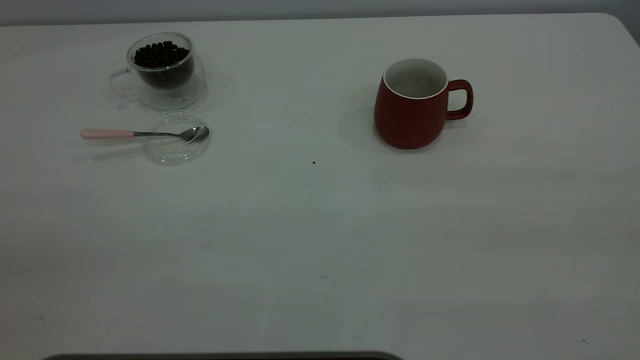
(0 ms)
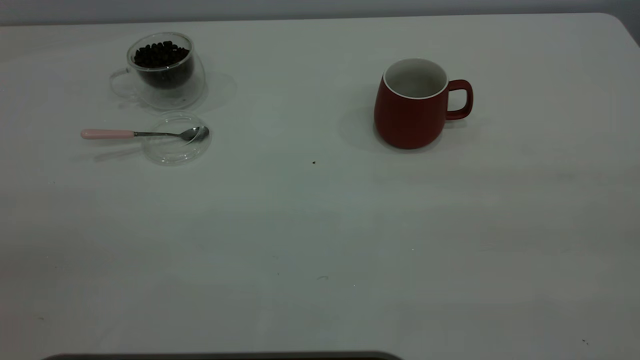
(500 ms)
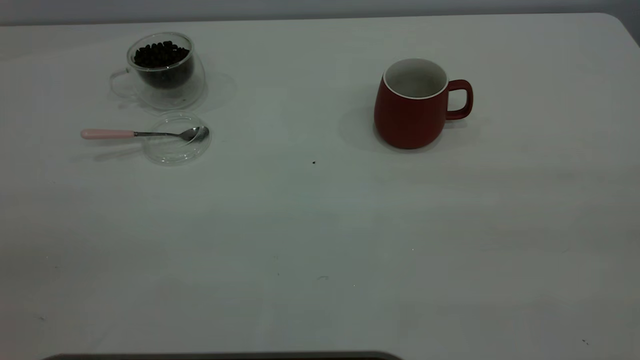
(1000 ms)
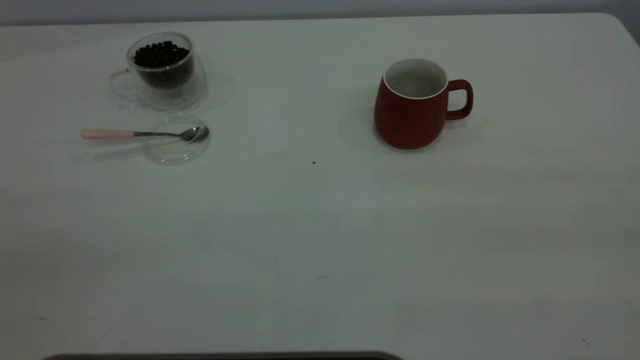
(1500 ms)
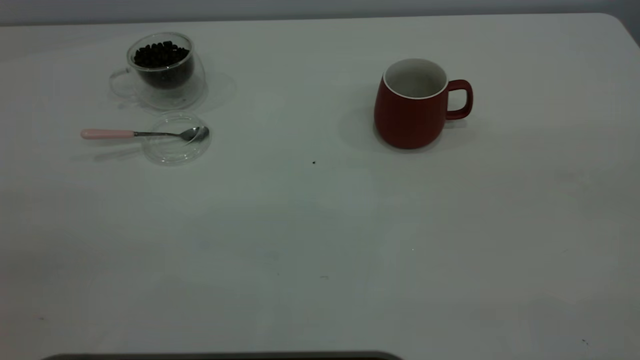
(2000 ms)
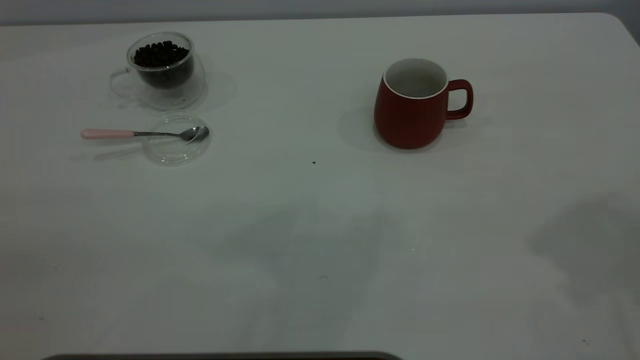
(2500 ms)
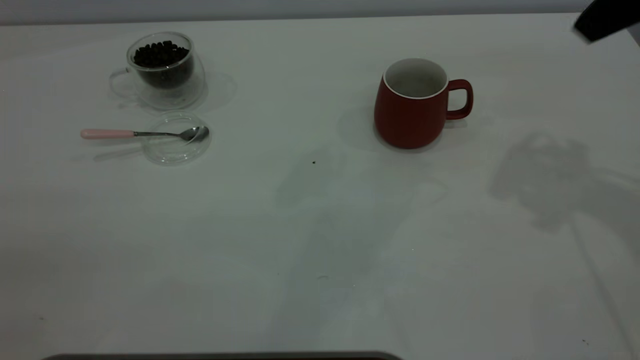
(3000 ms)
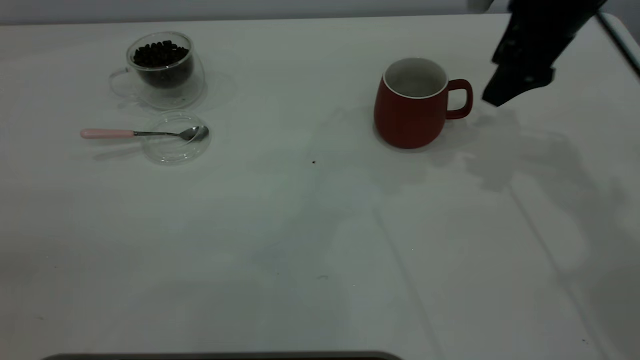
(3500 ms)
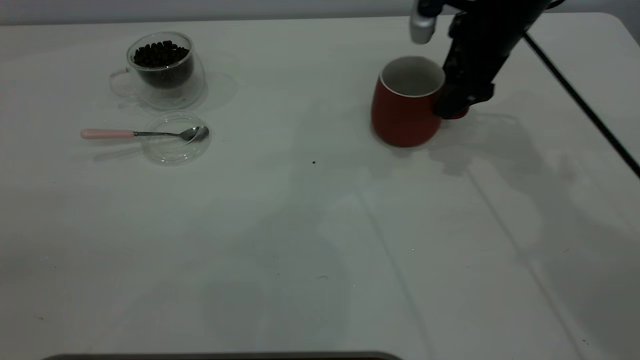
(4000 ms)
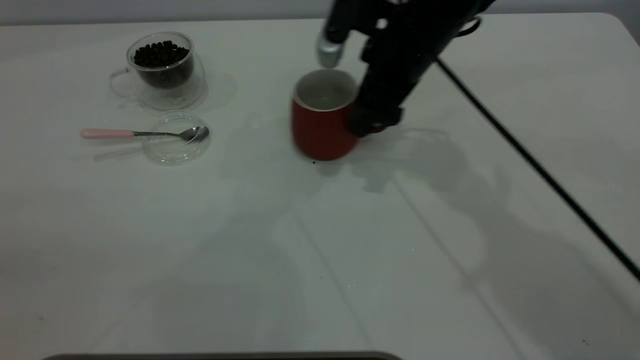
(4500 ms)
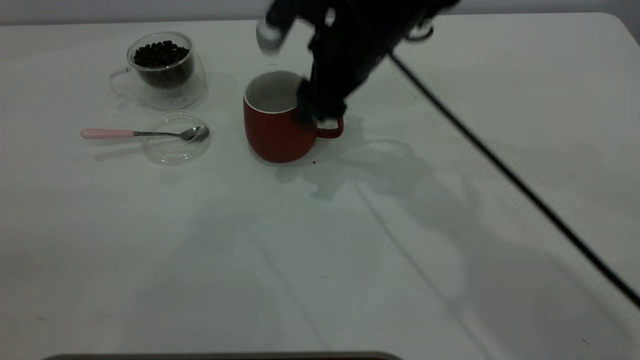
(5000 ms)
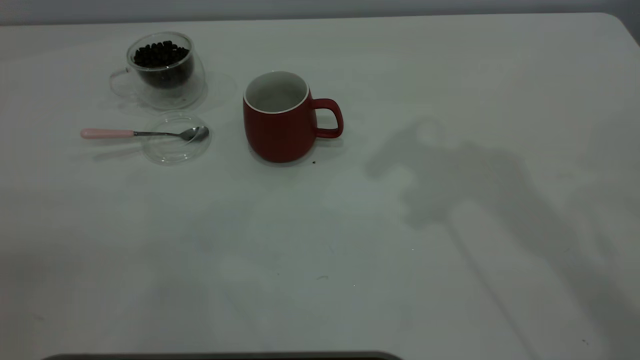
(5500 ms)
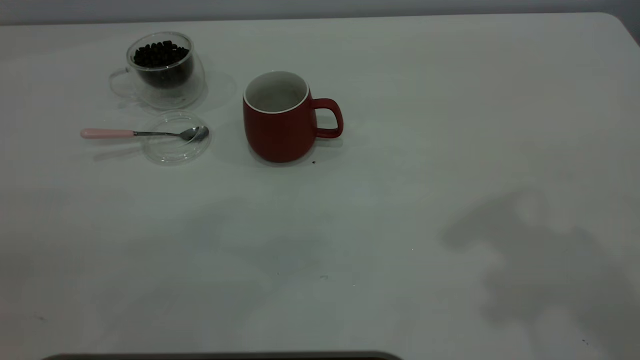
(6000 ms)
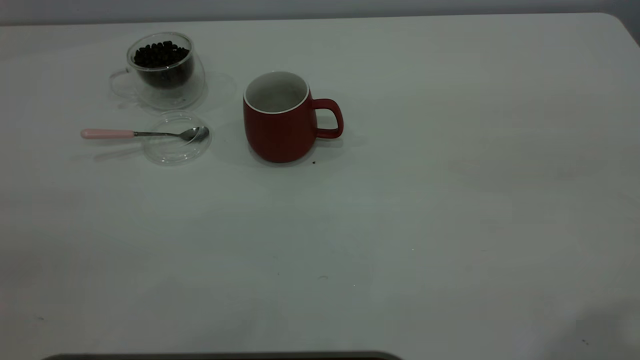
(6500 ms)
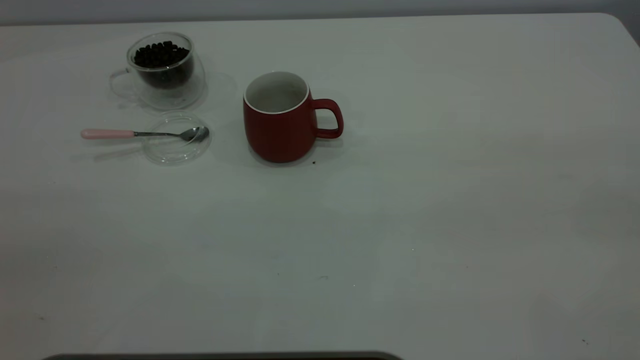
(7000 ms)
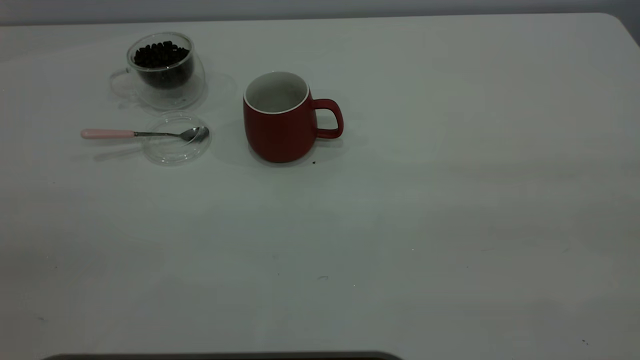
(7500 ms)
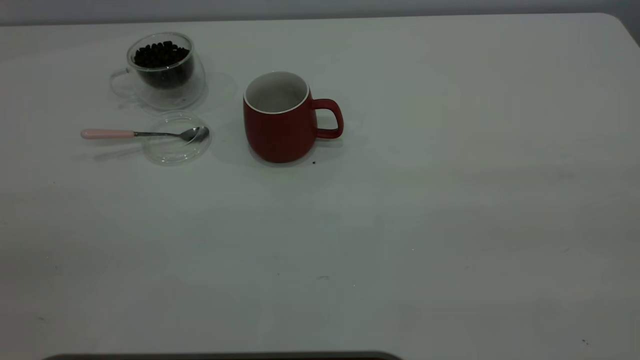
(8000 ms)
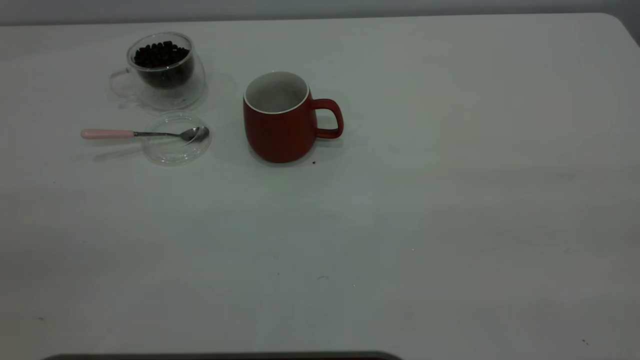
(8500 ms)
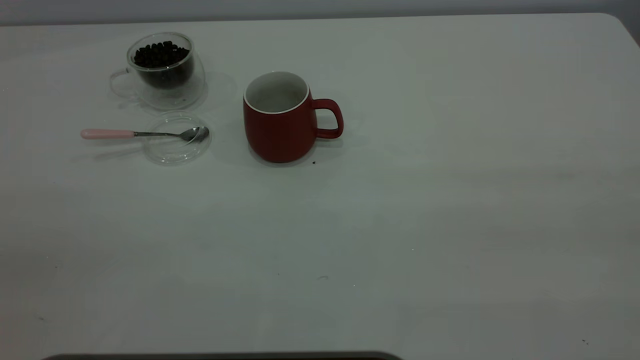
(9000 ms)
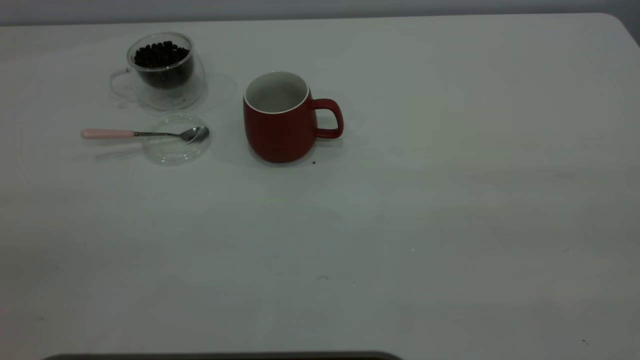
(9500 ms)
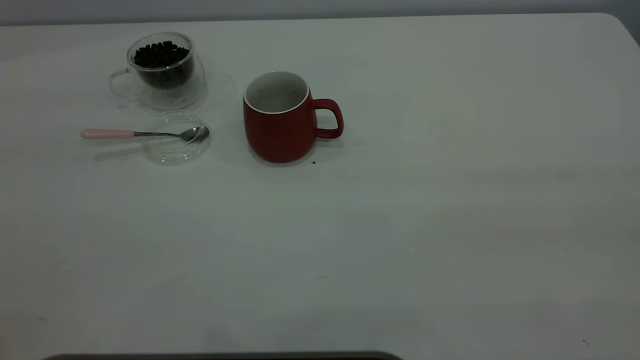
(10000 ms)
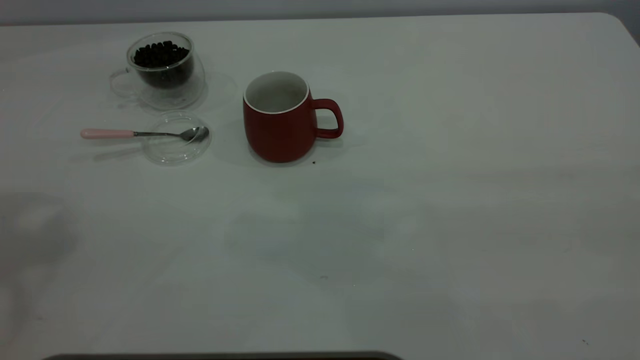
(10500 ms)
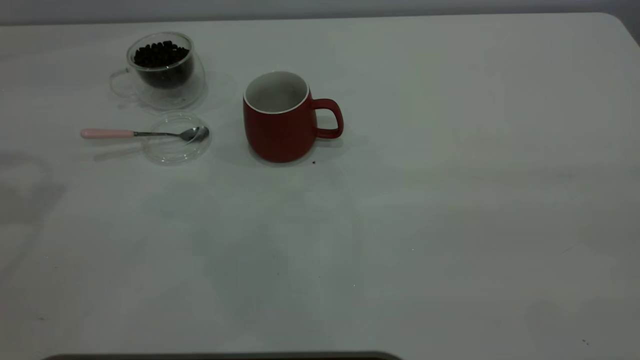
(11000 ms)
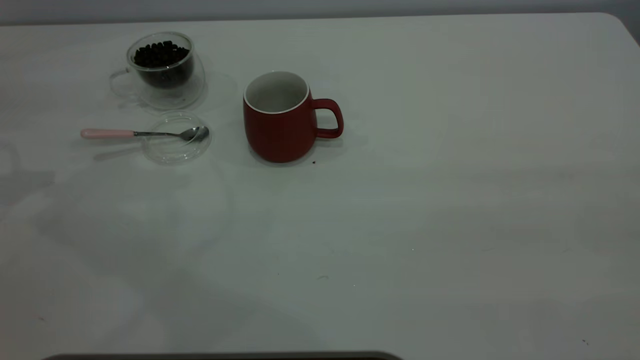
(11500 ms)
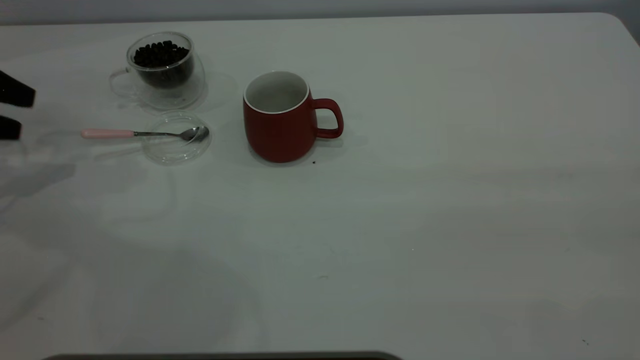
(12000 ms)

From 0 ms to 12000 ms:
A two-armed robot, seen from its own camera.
Task of the whole recording: the right gripper place the red cup in the center of the table, the left gripper take the pink spoon from the cup lid and scoop out the coffee beans from the coffee cup and put them into the red cup, the left gripper put the spoon back into the cup lid.
Step, from 0 ms to 5000 ms: Move the cup to the center of view.
From 2000 ms to 4000 ms: The right gripper shifts about 50 cm forward and downward, and opens.
From 4000 ms to 6000 ms: The right gripper heads upward and backward, covering approximately 35 cm, and closes its fingers.
From 10000 ms to 12000 ms: The left gripper shifts roughly 40 cm downward, forward and to the left.

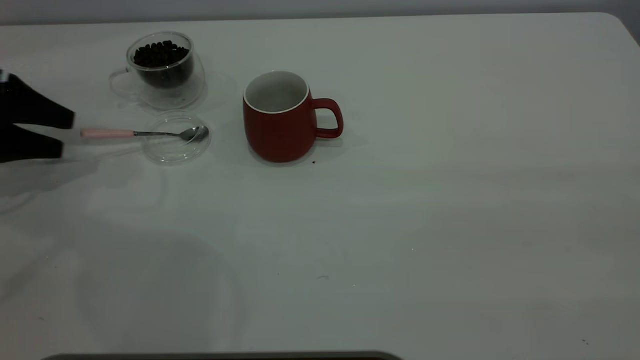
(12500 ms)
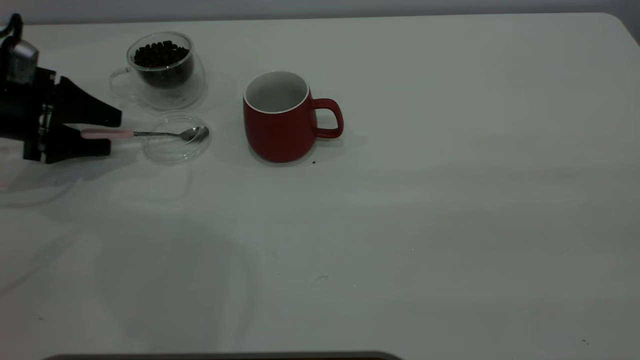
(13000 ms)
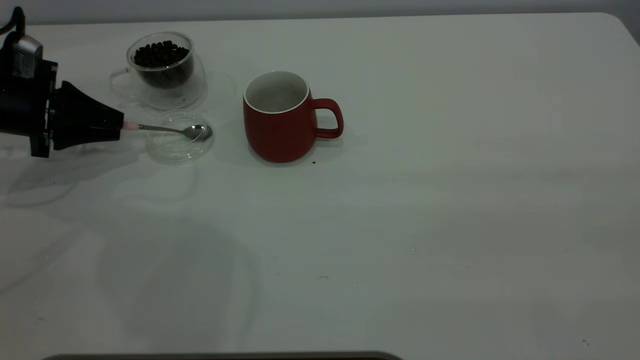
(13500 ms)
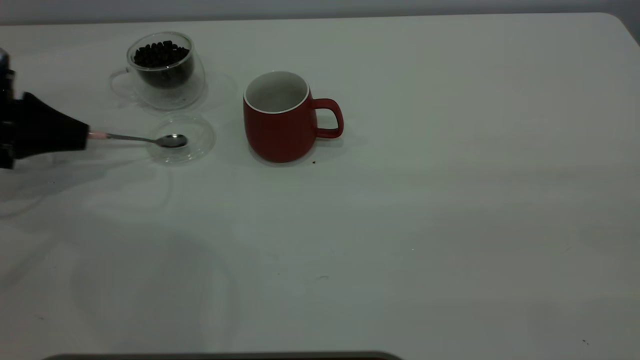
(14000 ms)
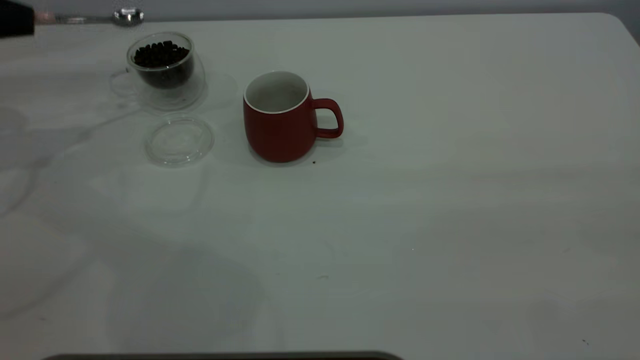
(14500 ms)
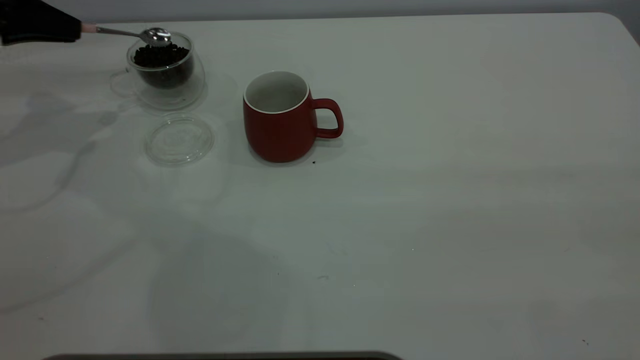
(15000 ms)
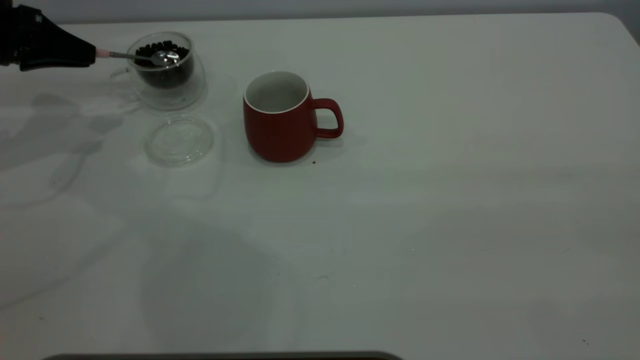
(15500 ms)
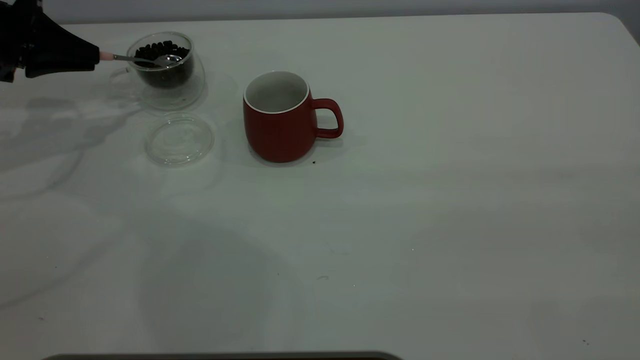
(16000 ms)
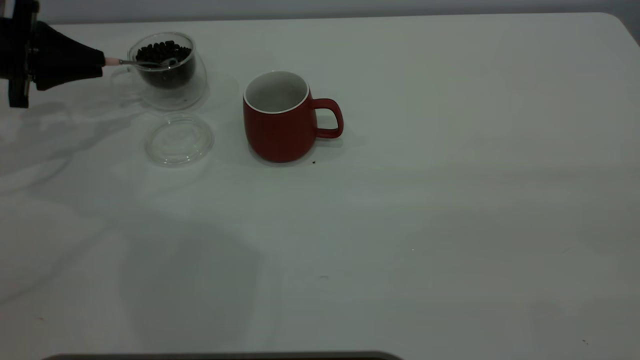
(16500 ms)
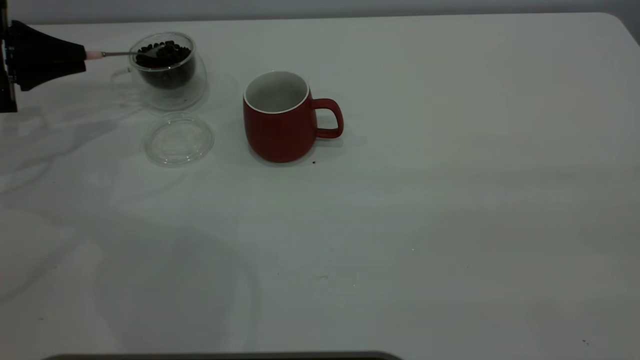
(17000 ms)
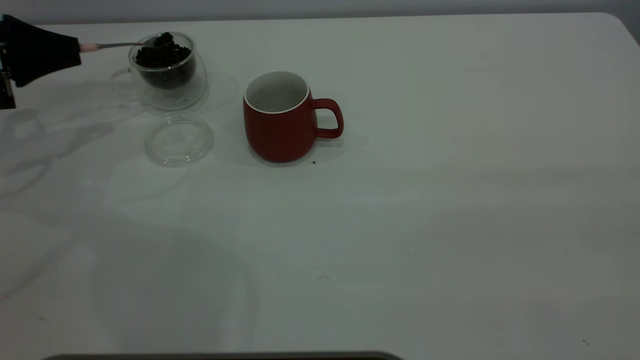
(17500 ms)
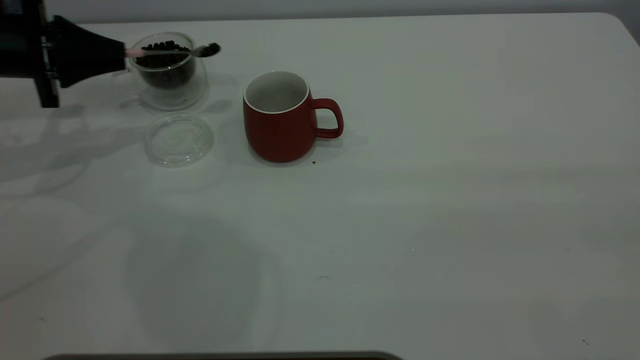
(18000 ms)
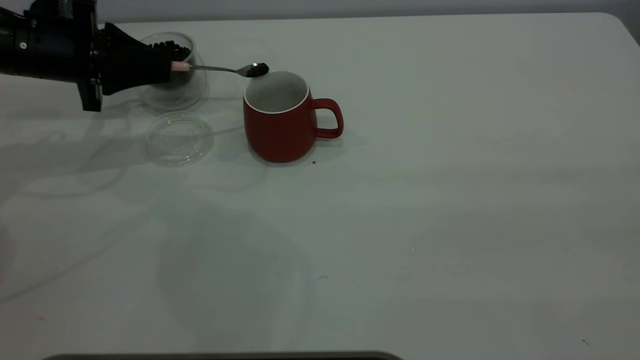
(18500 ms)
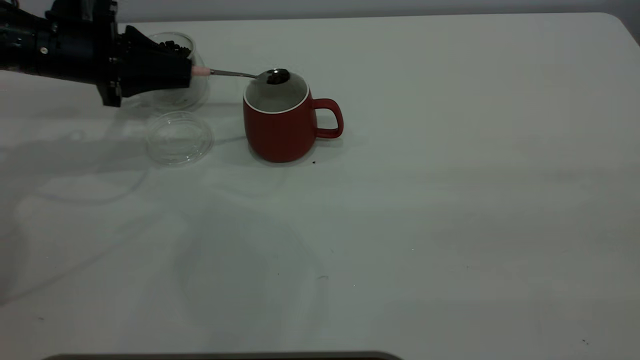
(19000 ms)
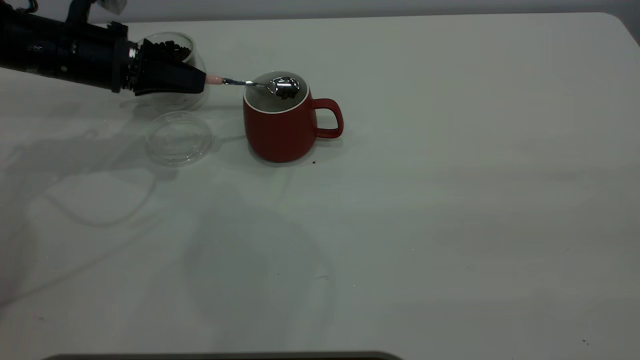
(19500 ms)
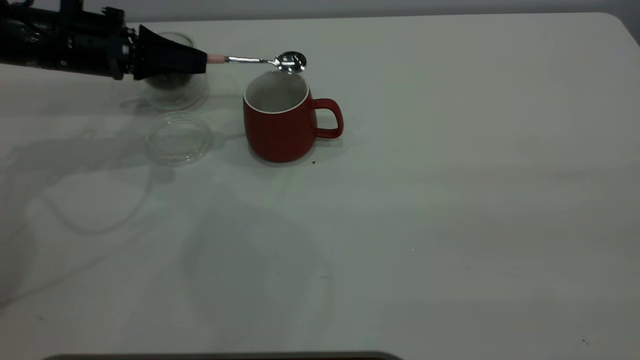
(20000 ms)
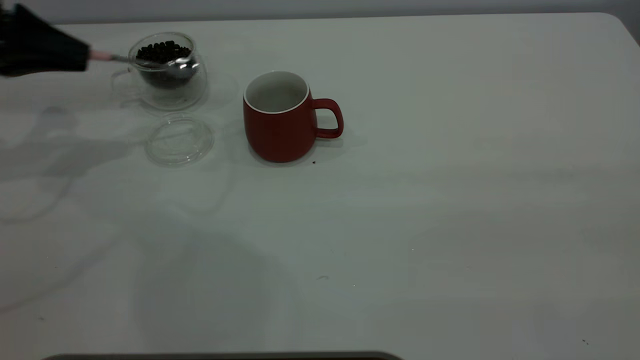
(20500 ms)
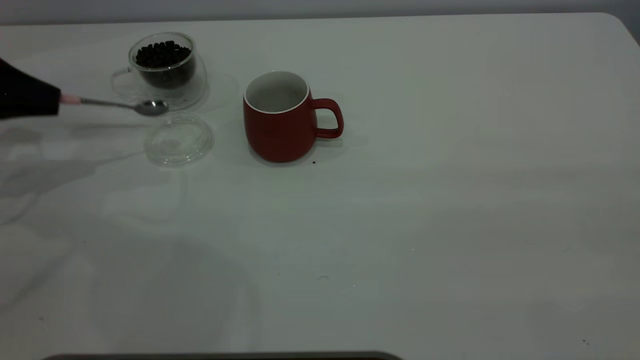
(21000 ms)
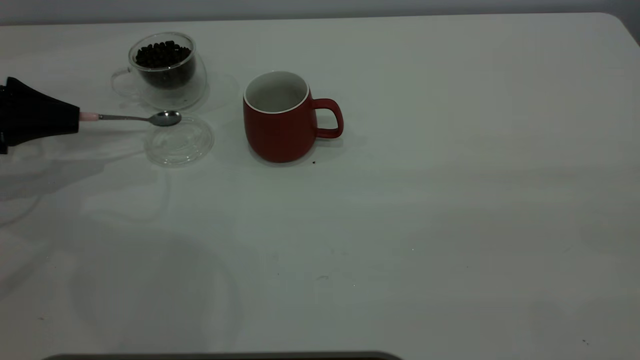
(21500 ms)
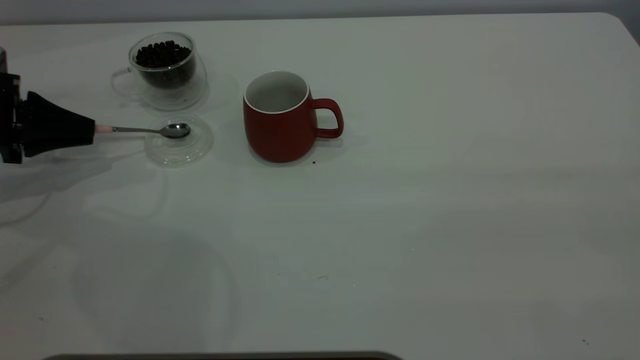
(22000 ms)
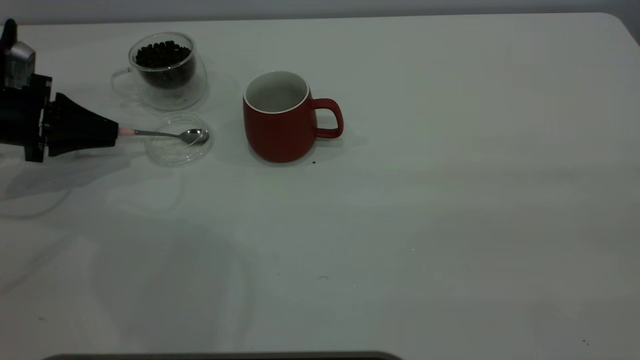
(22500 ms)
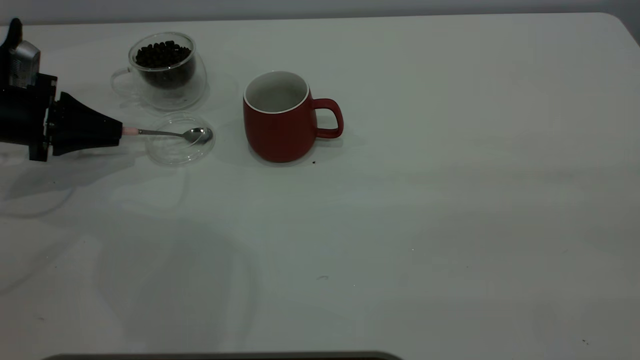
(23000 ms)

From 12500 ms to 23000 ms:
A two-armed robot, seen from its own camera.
Task of the whole recording: the right gripper place the red cup in the center of the table, the left gripper take the pink spoon from the cup lid and scoop out the coffee beans from the coffee cup and put them into the red cup, the left gripper put the spoon back into the cup lid.
Step, from 14500 ms to 20000 ms: Scoop a spoonful of beans into the cup.
From 12500 ms to 14500 ms: The left gripper goes some 10 cm upward, and closes its fingers.
From 14500 ms to 16500 ms: The left gripper goes some 5 cm downward.
From 16500 ms to 19000 ms: The left gripper travels to the right by about 10 cm.
From 19000 ms to 21000 ms: The left gripper moves to the left, about 15 cm.
From 21000 ms to 23000 ms: The left gripper is displaced downward by roughly 5 cm.
